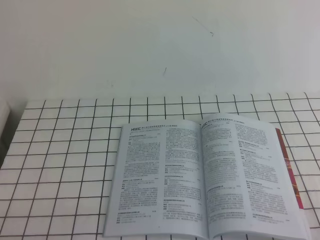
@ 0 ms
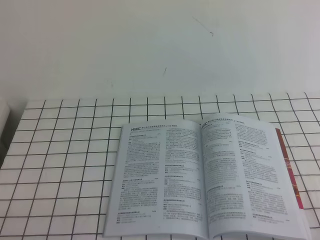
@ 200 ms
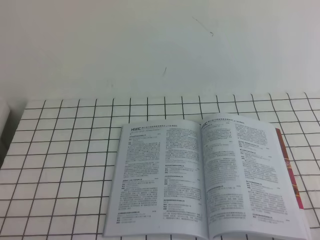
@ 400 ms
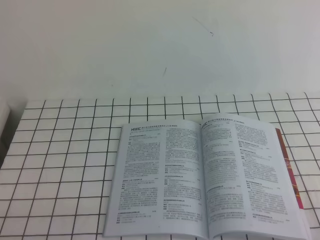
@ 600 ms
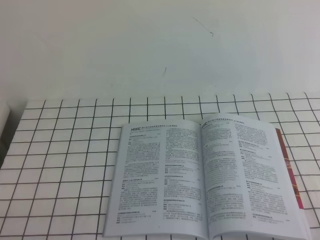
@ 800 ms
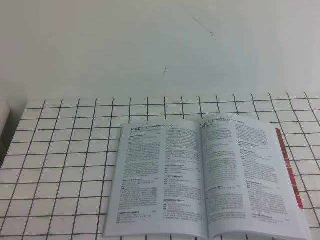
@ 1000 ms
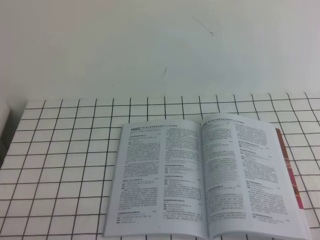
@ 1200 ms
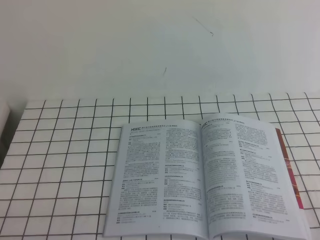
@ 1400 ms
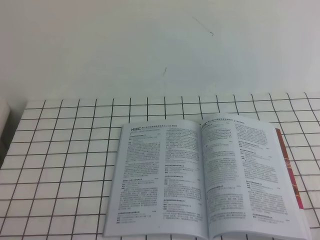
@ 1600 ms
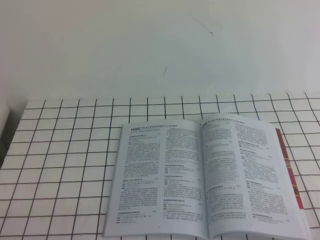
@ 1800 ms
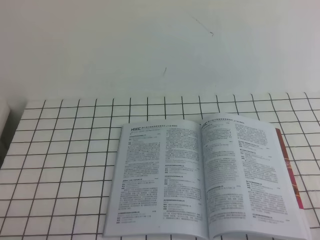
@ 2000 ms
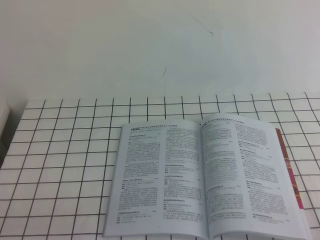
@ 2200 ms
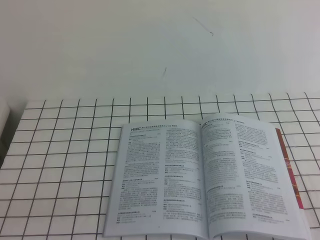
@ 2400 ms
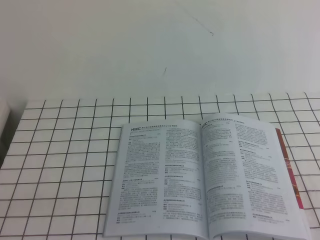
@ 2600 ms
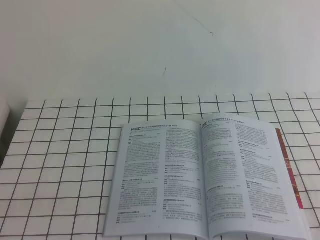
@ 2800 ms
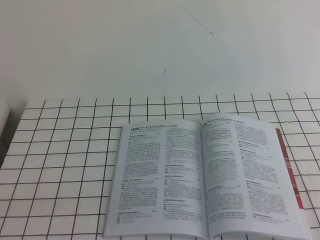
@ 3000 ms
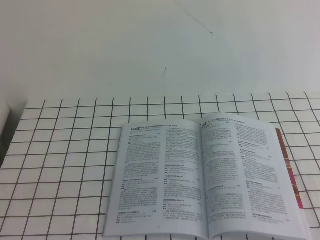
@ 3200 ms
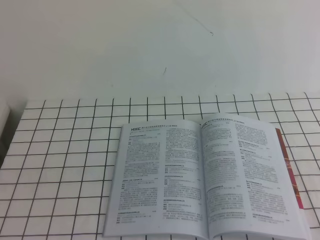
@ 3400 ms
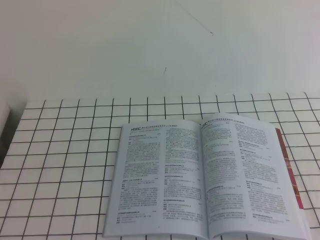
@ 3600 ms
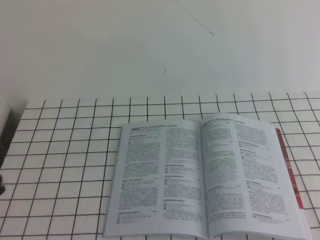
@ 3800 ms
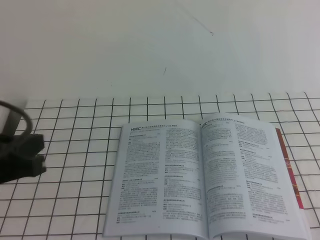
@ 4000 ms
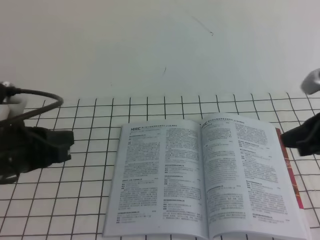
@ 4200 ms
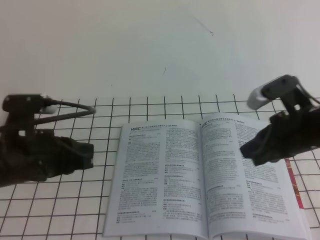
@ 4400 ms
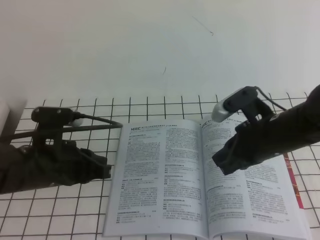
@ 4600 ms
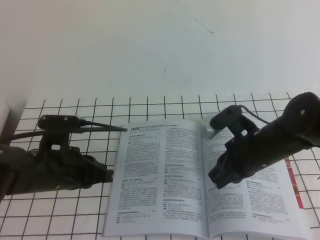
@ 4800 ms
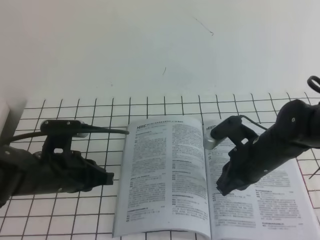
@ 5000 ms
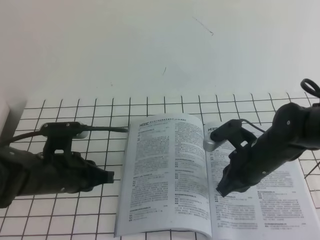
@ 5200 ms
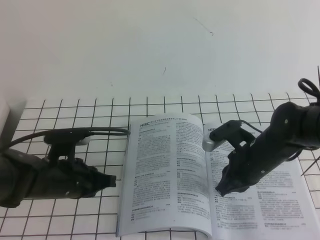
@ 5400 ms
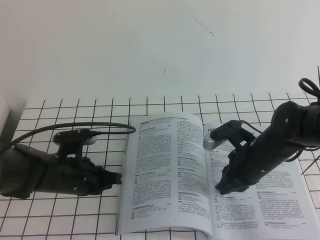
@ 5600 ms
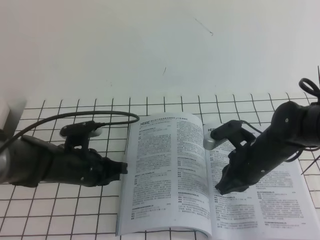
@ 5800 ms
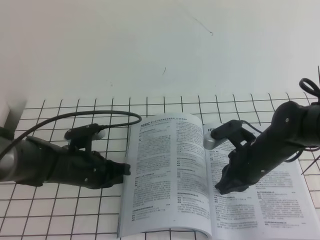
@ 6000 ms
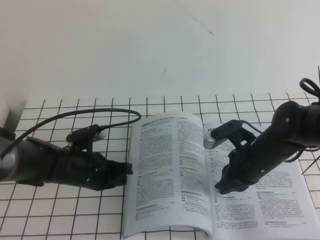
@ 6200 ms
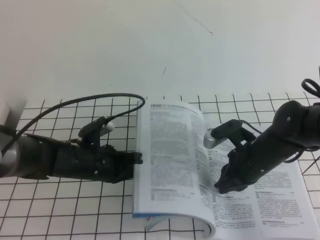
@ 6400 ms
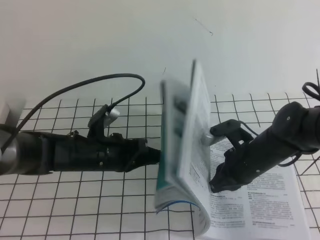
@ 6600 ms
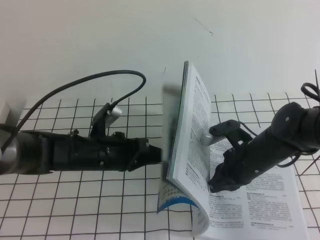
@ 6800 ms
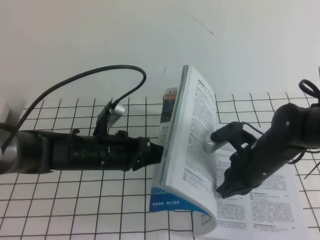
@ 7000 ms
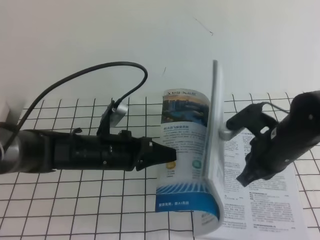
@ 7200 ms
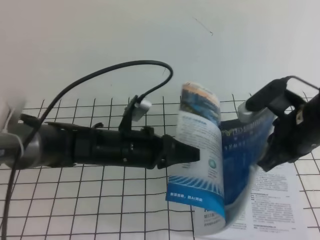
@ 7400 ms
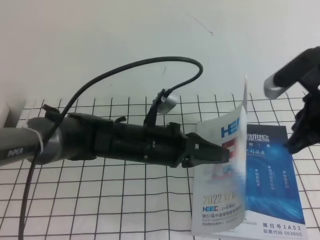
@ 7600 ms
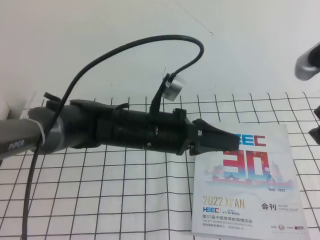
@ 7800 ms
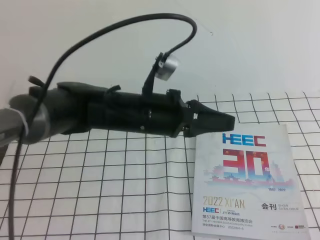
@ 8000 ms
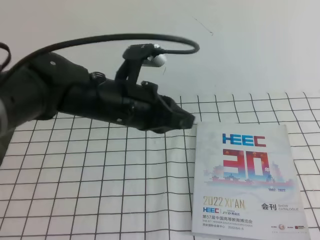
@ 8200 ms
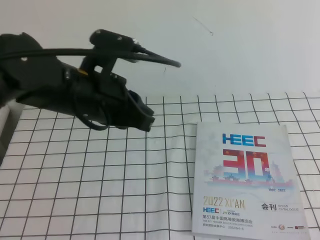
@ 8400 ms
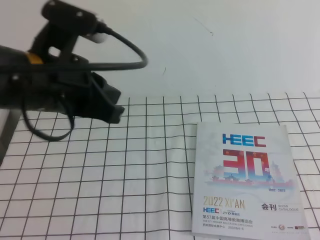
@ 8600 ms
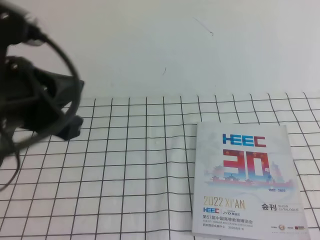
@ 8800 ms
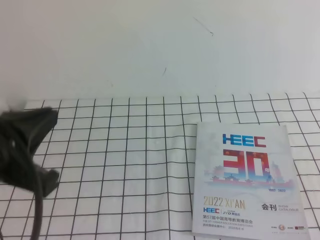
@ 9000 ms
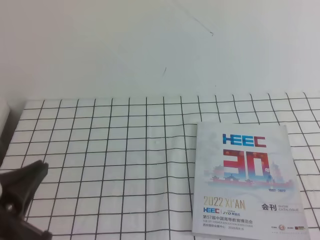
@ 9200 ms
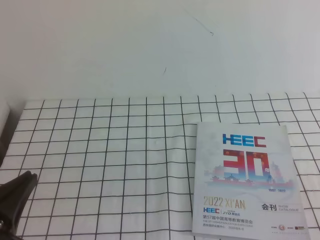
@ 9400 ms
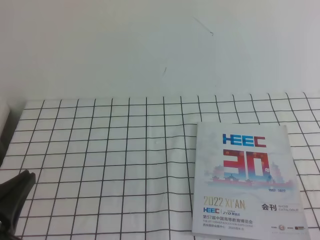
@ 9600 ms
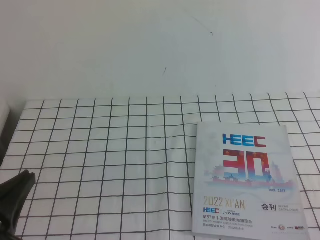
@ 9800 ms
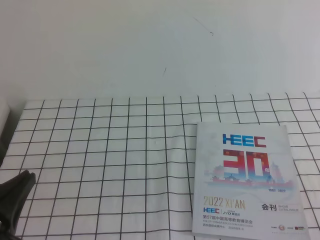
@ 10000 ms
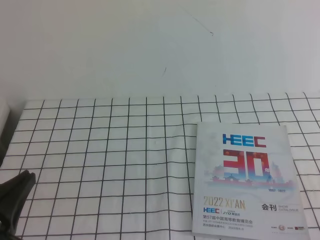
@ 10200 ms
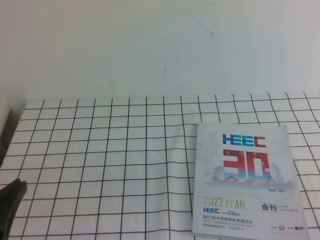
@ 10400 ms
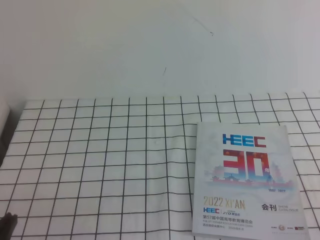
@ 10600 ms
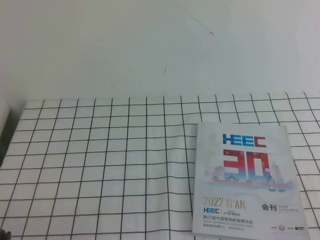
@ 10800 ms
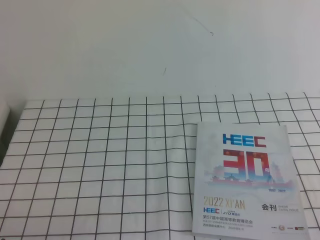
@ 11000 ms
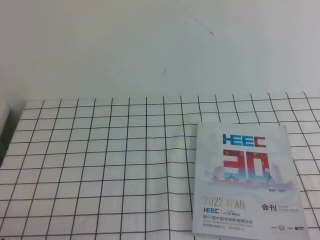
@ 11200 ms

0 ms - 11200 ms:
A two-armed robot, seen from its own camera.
Task of the whole recording: on the white tablecloth, hold the book with one hand and close it with the other.
0 ms - 1600 ms: Both grippers stay about where they are.
3200 ms - 4800 ms: The left gripper travels forward by approximately 25 cm. Meanwhile the right gripper is displaced forward and to the left by some 30 cm.
4800 ms - 6400 ms: The right gripper goes about 5 cm downward, while the left gripper goes roughly 10 cm downward and forward.
6400 ms - 8000 ms: The right gripper moves upward and backward, about 30 cm, while the left gripper moves upward and to the right, some 15 cm.
8000 ms - 9600 ms: The left gripper heads backward and to the left, covering approximately 30 cm. The right gripper moves backward, downward and to the right, approximately 20 cm.
9600 ms - 11200 ms: The left gripper is displaced downward by about 10 cm.

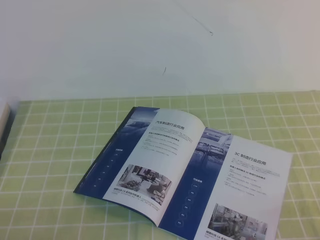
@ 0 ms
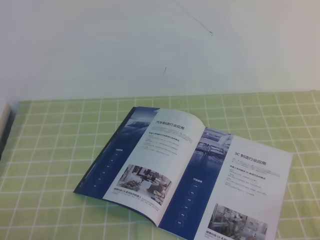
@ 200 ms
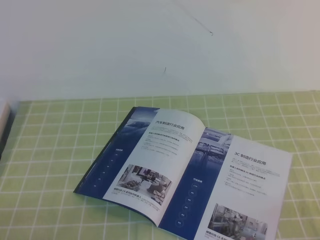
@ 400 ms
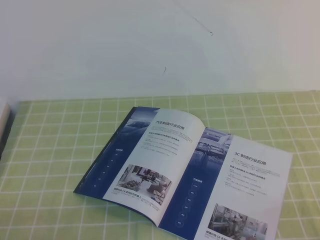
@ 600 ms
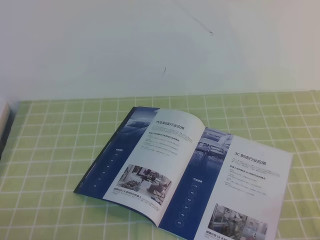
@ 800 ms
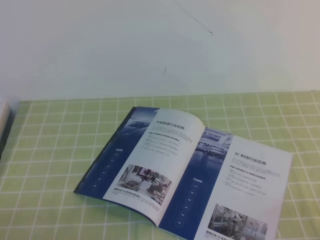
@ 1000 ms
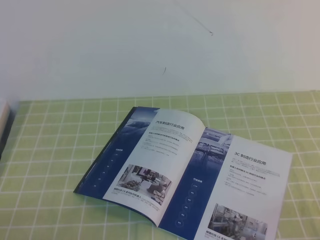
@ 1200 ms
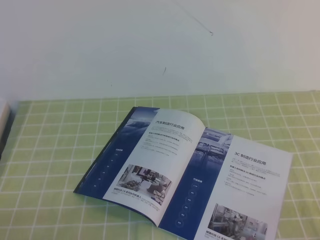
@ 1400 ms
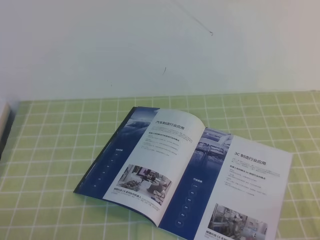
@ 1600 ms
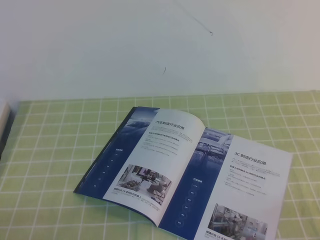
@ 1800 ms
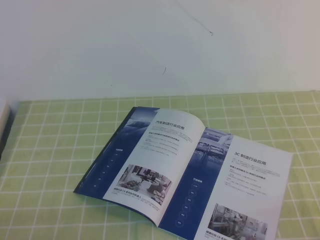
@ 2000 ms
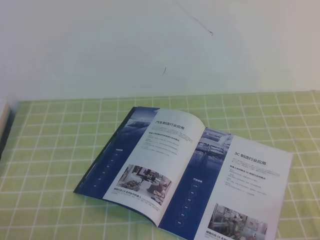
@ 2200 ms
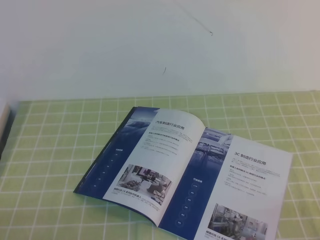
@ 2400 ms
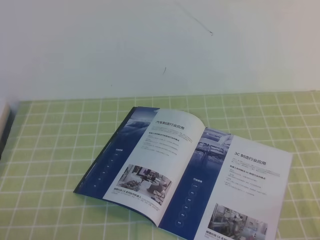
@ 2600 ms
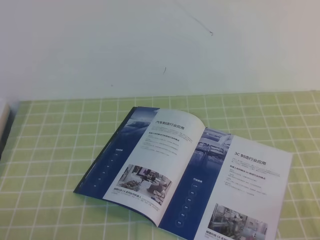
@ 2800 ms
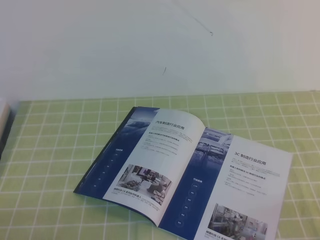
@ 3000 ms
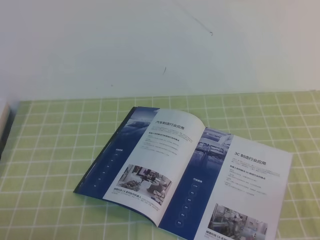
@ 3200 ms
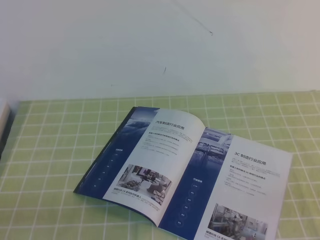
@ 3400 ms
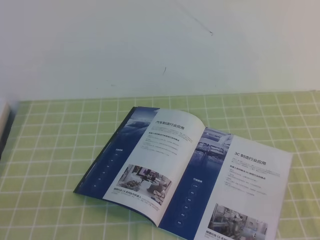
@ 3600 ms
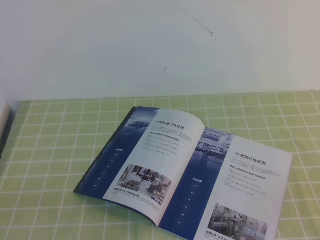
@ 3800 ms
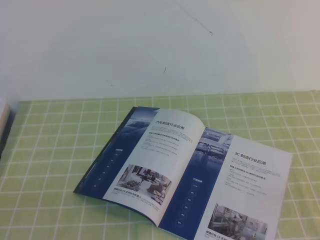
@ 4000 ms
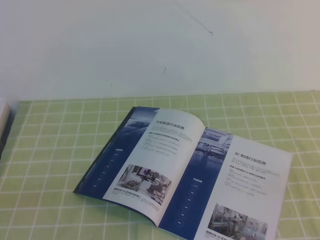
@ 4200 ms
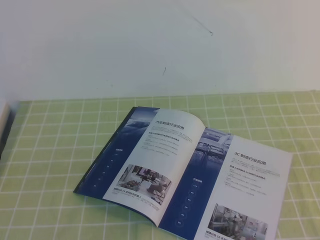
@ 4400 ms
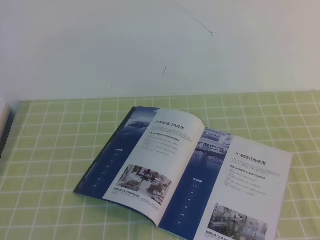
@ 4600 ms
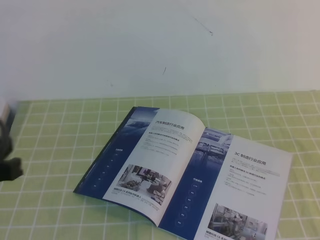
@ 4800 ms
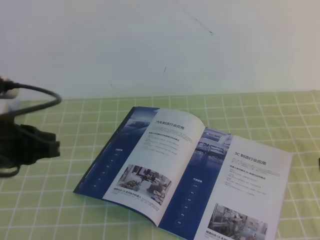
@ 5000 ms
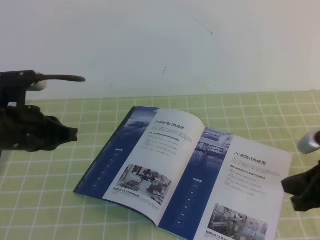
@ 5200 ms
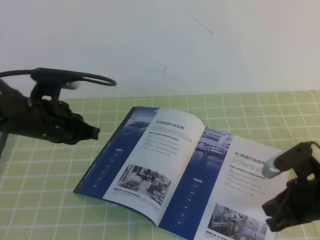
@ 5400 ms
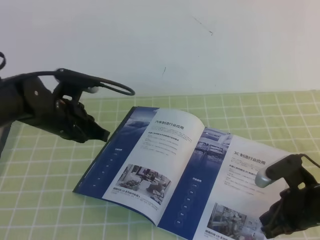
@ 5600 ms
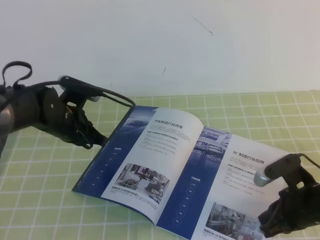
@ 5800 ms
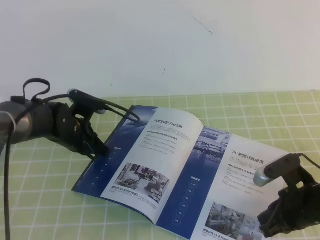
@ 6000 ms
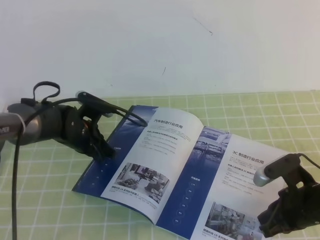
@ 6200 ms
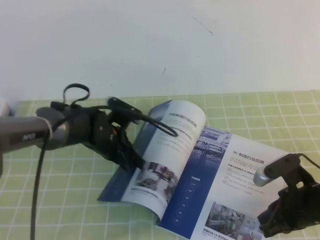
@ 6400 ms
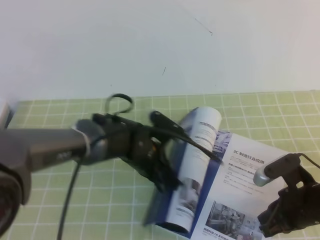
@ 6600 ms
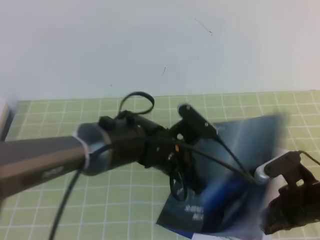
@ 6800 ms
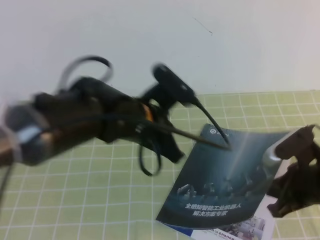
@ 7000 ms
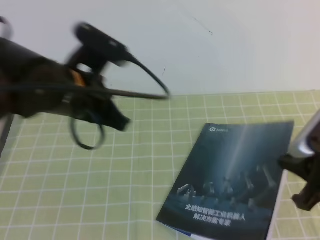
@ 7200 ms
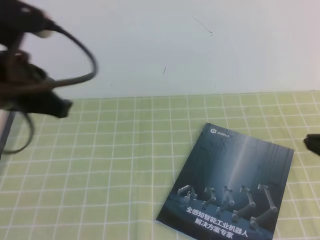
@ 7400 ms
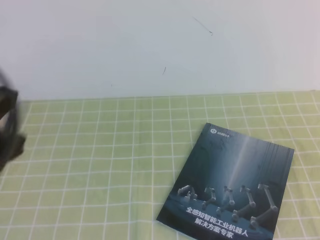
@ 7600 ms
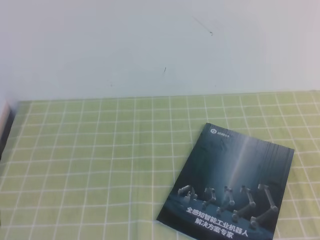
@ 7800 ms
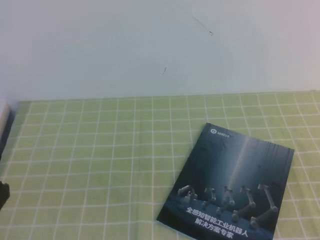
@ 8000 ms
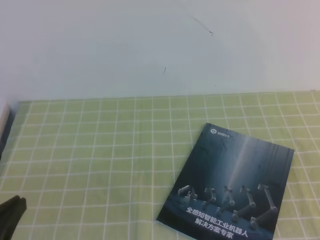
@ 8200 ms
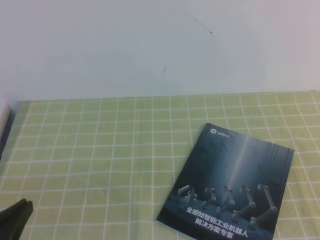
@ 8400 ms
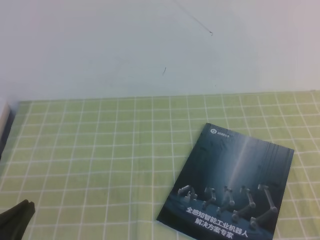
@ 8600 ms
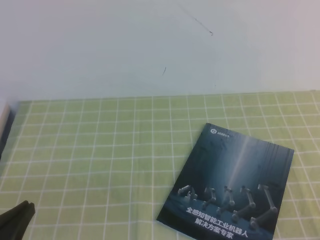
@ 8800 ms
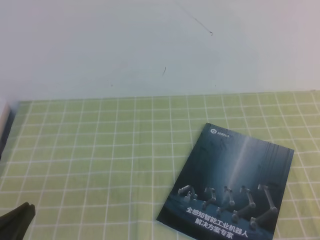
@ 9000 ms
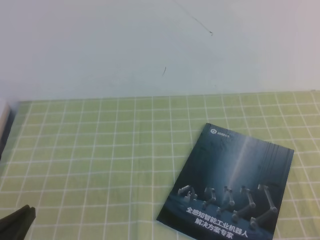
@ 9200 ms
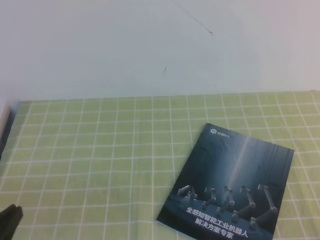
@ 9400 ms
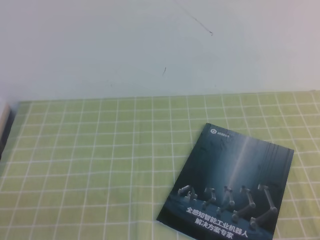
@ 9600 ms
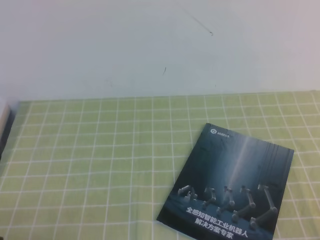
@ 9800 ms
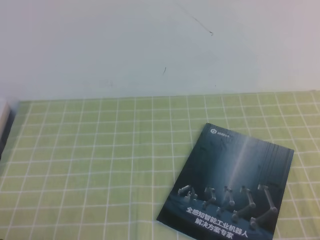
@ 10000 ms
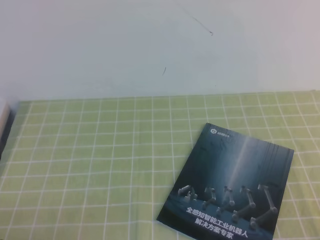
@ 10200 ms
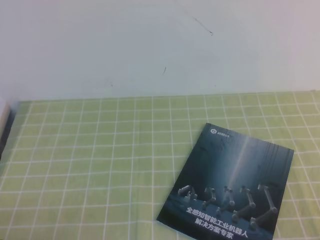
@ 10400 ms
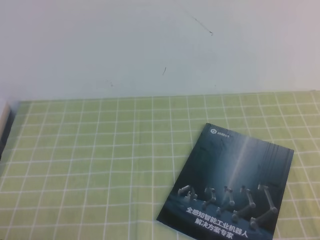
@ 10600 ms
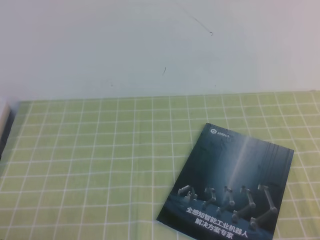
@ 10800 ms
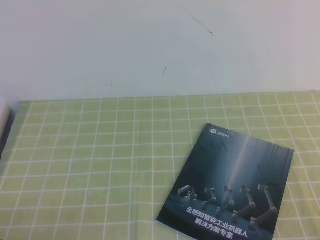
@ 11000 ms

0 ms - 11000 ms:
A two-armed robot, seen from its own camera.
Task of the whole recording: on the green tablecloth, hold the book with one hand and close it with the other.
3200 ms - 4800 ms: The left gripper travels upward by about 15 cm.
4800 ms - 6200 ms: The left gripper travels forward and downward by some 35 cm. Meanwhile the right gripper heads downward, forward and to the left, covering some 25 cm.
6200 ms - 7800 ms: The right gripper shifts roughly 25 cm upward and backward; the left gripper goes approximately 35 cm backward and upward.
7800 ms - 9400 ms: The left gripper heads downward, covering about 15 cm. The right gripper moves downward, backward and to the right, approximately 15 cm.
9400 ms - 11000 ms: The left gripper travels downward by roughly 5 cm.
